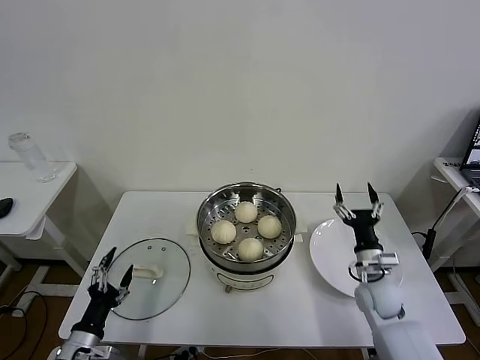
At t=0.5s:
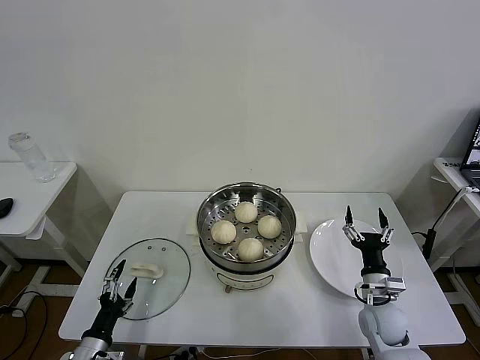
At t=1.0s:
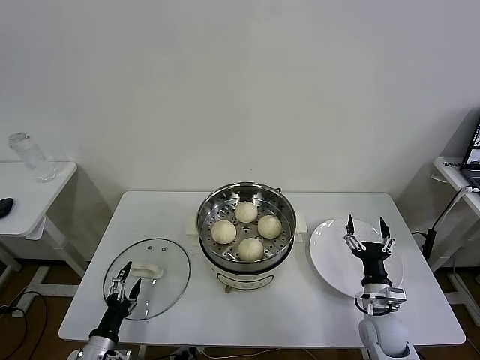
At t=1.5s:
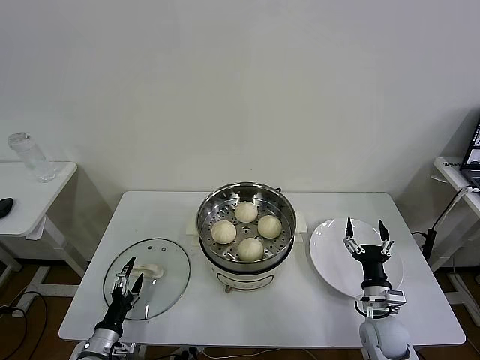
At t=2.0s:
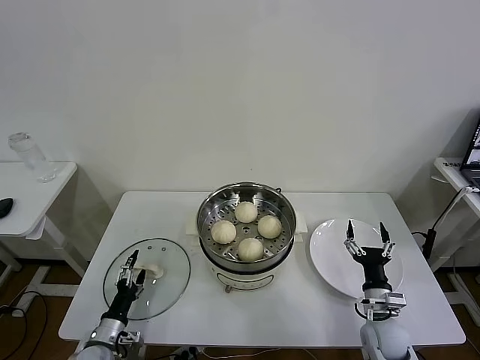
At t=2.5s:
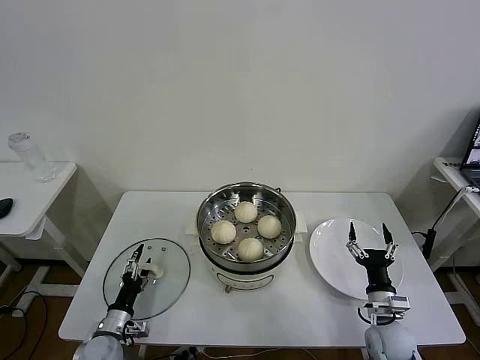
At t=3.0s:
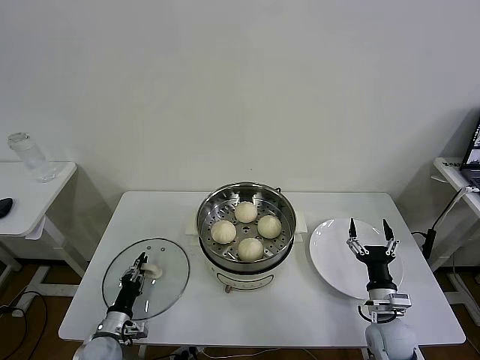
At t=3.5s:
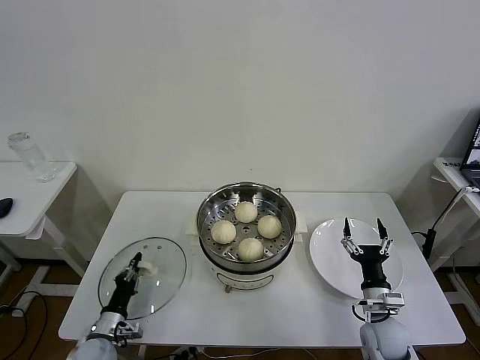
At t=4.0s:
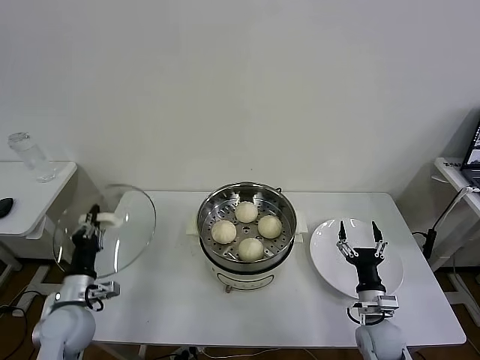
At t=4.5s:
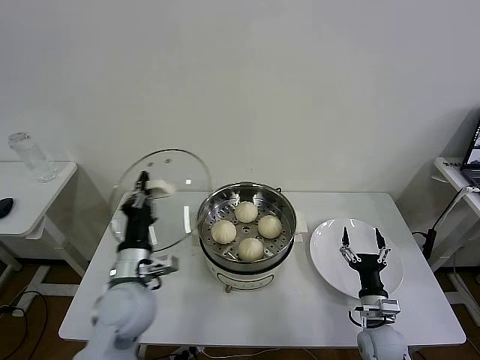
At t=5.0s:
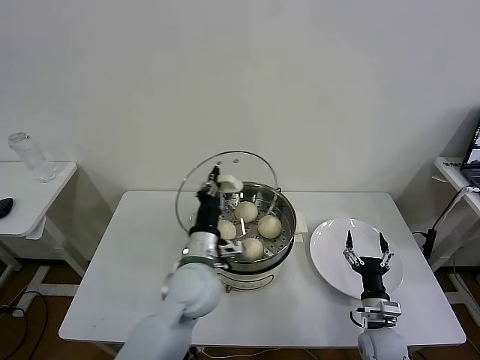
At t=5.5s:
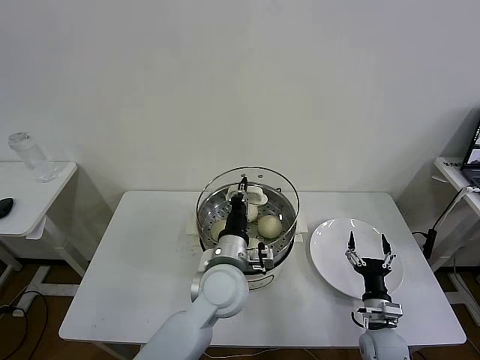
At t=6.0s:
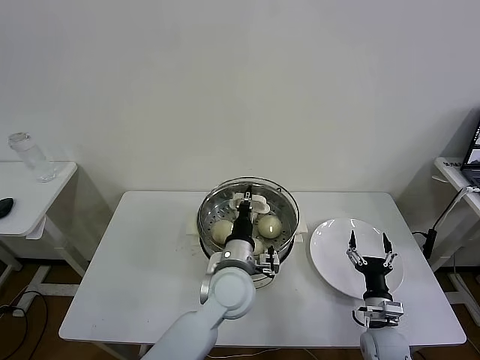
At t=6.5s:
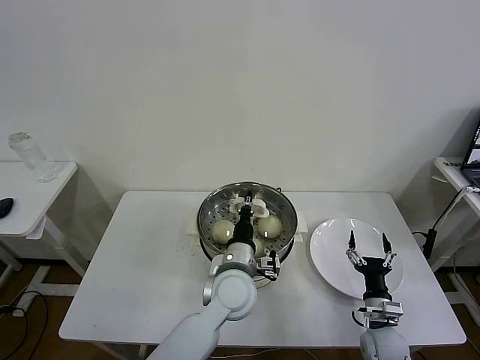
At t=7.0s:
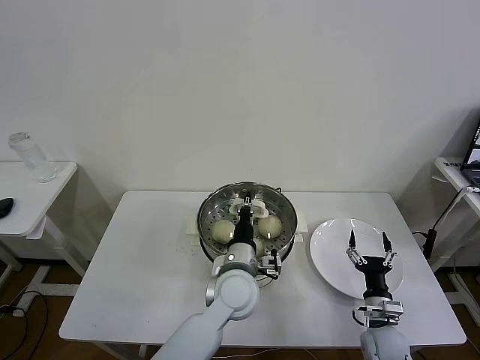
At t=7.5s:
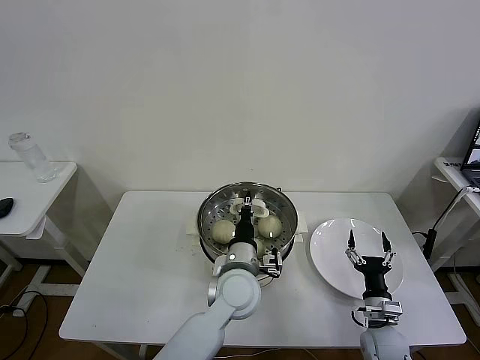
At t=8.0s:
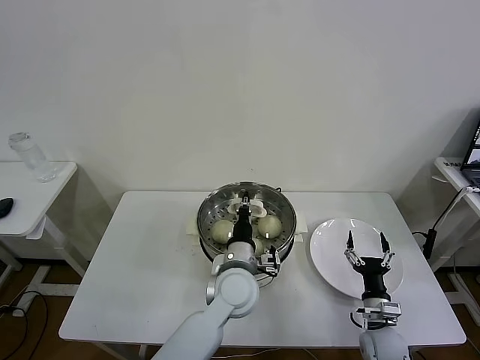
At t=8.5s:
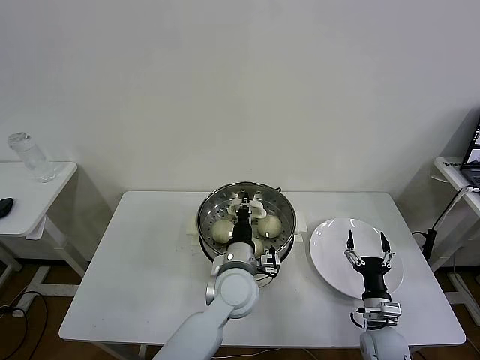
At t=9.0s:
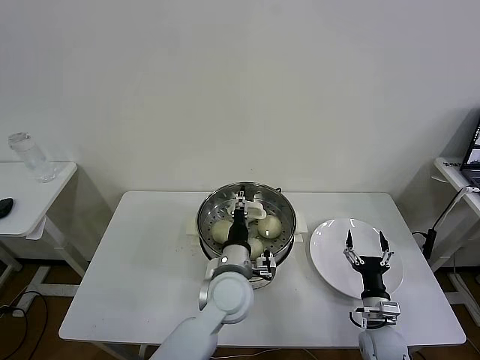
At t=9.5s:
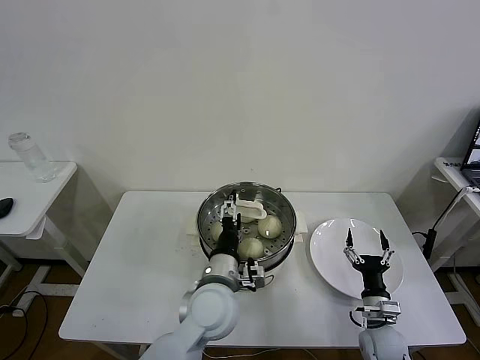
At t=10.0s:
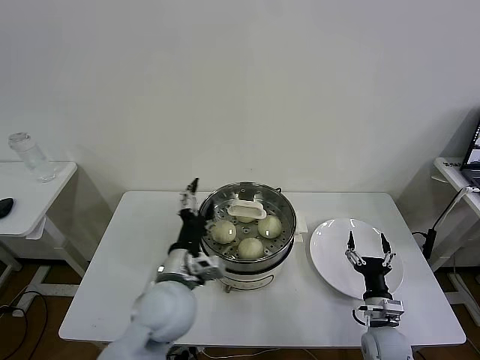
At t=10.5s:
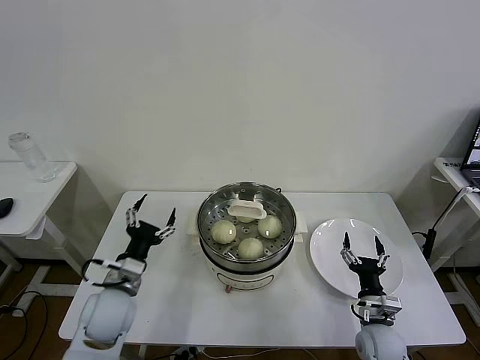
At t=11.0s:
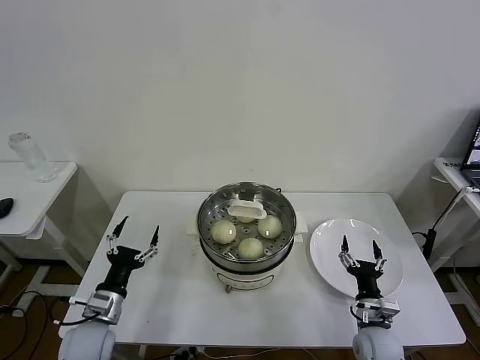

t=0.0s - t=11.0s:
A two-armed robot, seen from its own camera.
Task of the whole recording: take steamed baozi put them in steamer then cover it.
Step, t=0.0s - t=3.0s: Grasp the pot lid with left gripper.
Step, t=3.5s - t=9.0s: Place the pot lid on the steamer with left gripper.
t=0.0s - t=2.0s: The left gripper is displaced downward by some 10 cm. Meanwhile the right gripper shifts approximately 10 cm backward and downward.
t=2.0s - t=3.5s: The left gripper closes up.
t=3.5s - t=5.5s: The left gripper goes roughly 40 cm to the right and upward.
t=5.5s - t=7.5s: The grippers stay close to where they were, moving slightly.
t=7.5s - t=9.0s: The left gripper opens its fingers.
t=9.0s - t=11.0s: The left gripper moves to the left, approximately 30 cm, and opens.

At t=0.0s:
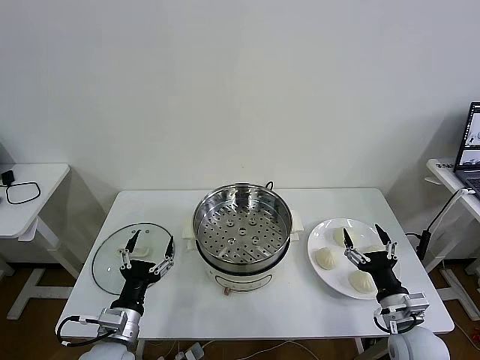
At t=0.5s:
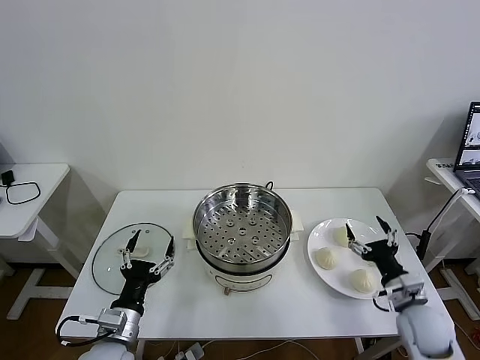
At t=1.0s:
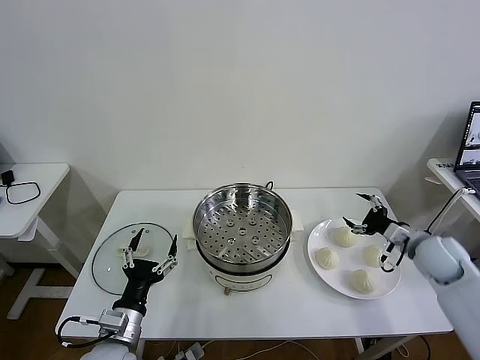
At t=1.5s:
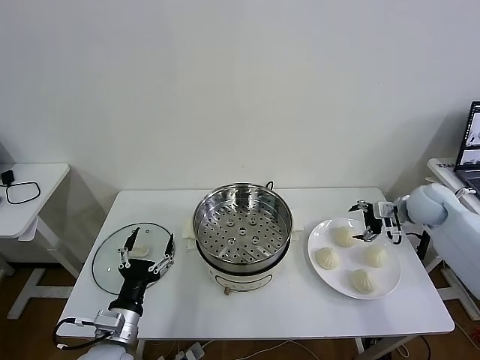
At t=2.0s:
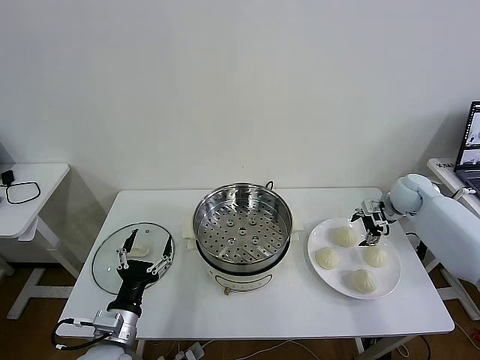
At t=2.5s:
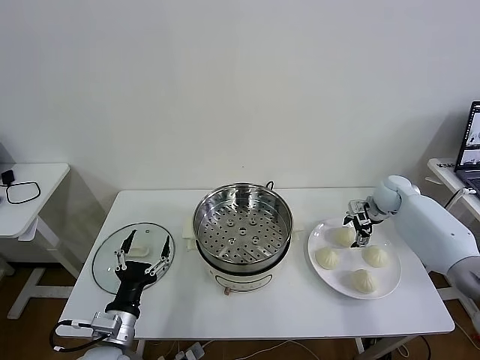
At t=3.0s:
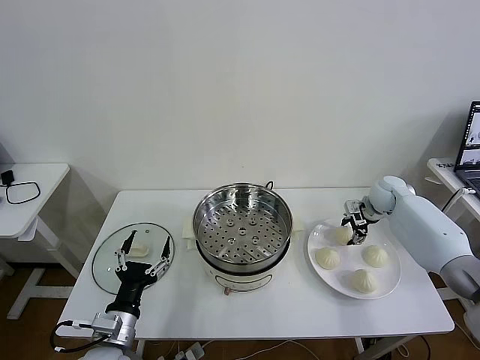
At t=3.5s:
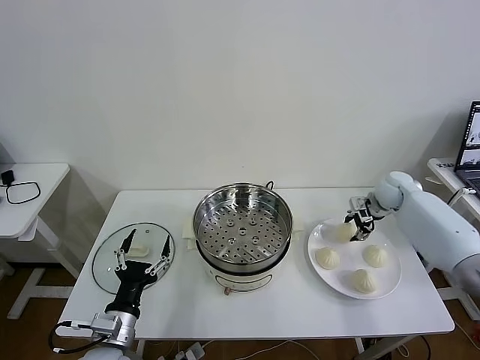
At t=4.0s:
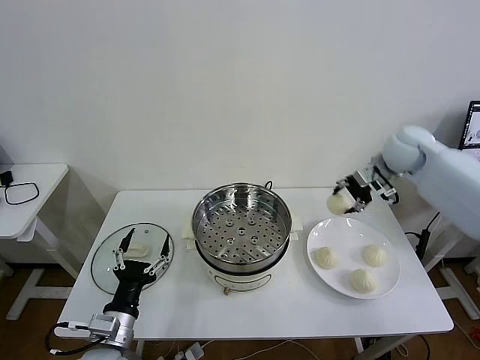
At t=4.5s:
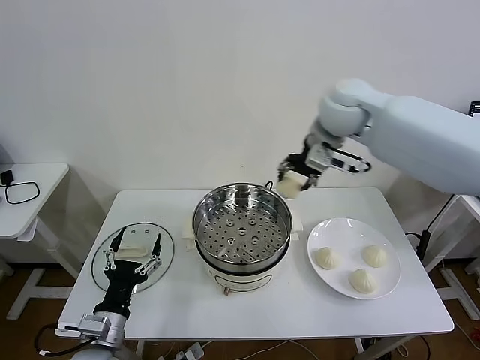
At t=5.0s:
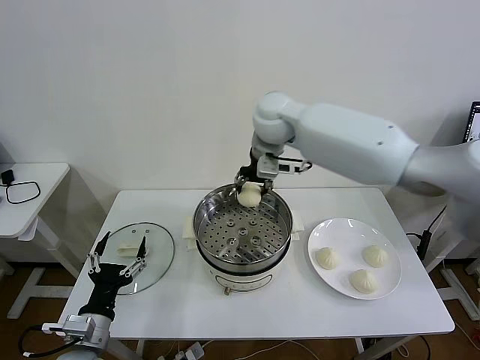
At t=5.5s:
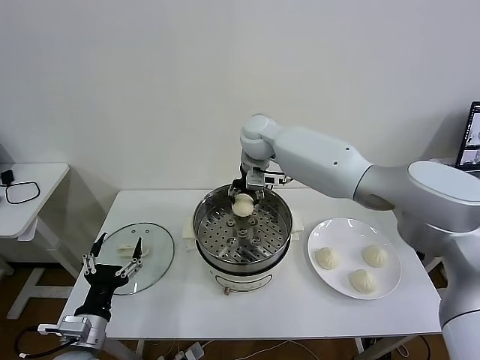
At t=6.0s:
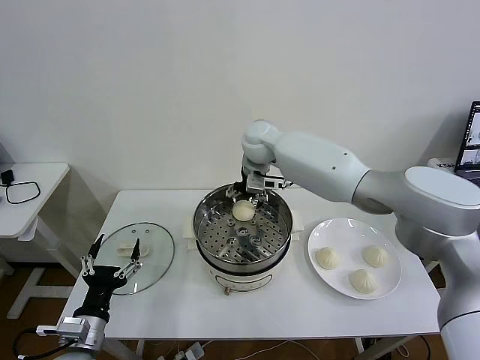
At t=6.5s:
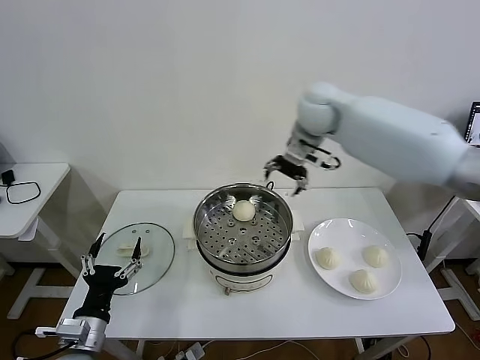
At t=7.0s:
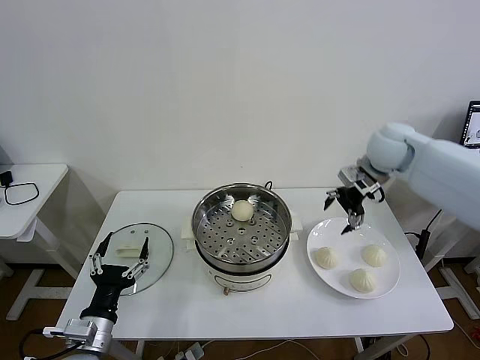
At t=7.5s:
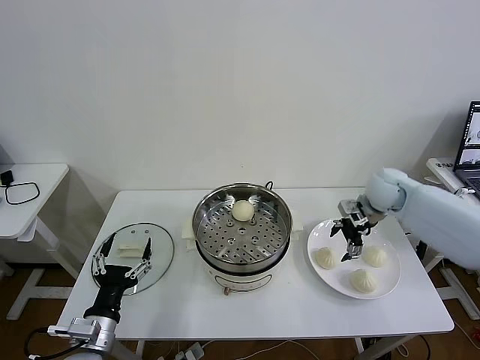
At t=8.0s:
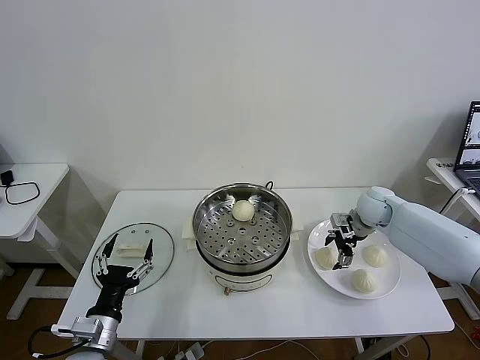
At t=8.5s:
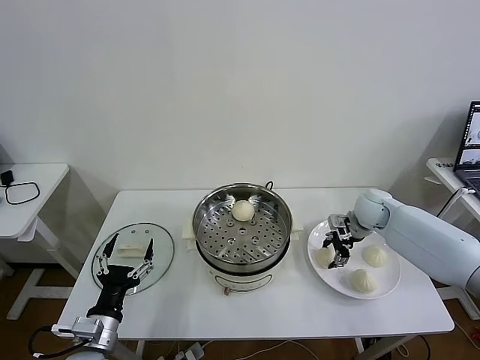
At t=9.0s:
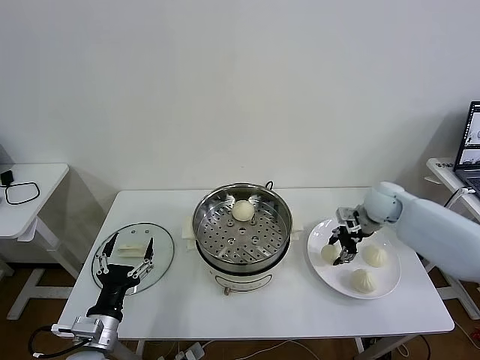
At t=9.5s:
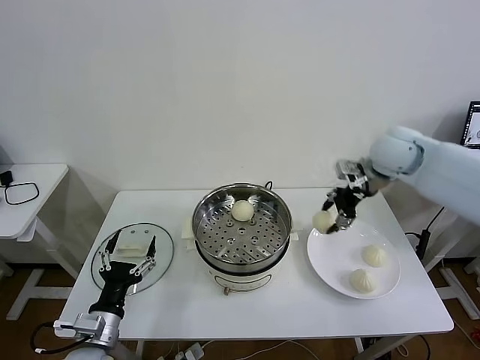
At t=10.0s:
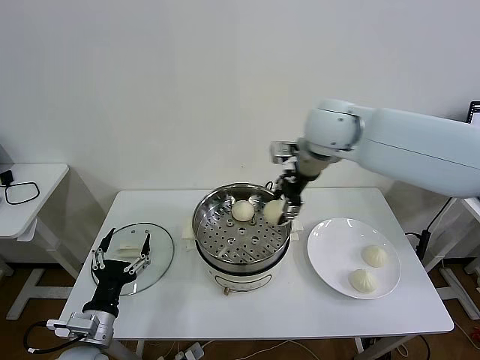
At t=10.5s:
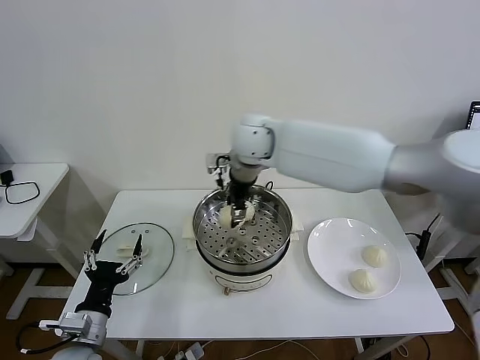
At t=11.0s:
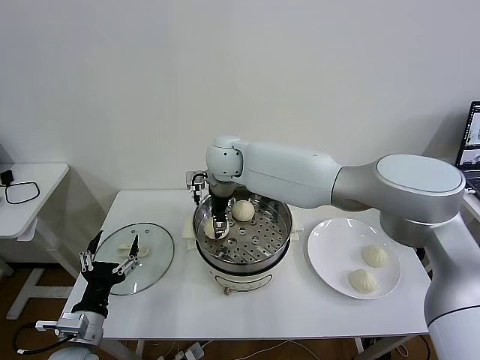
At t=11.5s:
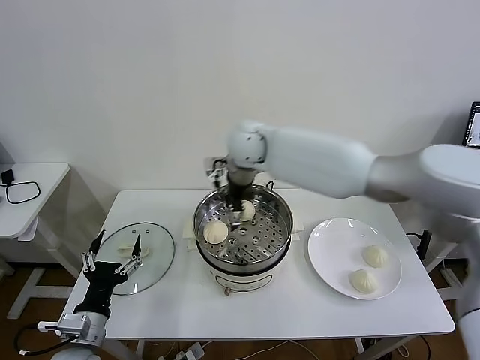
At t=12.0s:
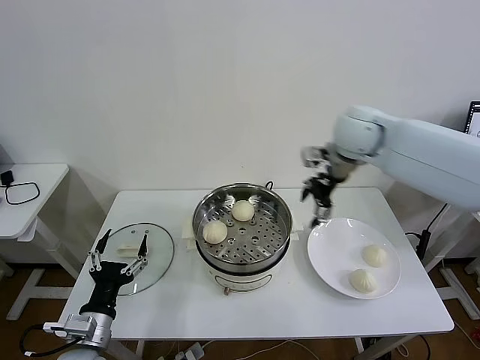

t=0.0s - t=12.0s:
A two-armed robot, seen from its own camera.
Task of the whole recording: take steamed baozi put them in steamer then cover it.
Step, t=0.0s - t=3.0s: Grasp the baozi in the plate with right gripper.
Step, t=3.5s - t=5.5s: Place the baozi on the steamer with right gripper.
Step, t=6.0s - t=8.5s: Grasp the baozi in the plate with right gripper.
Step, t=9.0s - t=11.0s: Place the baozi on the steamer with right gripper.
t=2.0s - t=4.0s: The right gripper travels upward and to the left by approximately 20 cm, and closes.
t=4.0s - t=6.0s: The left gripper is displaced to the left by some 5 cm. Meanwhile the right gripper heads to the left, covering approximately 25 cm, and opens up.
t=6.0s - t=8.0s: The right gripper heads to the right and downward, covering some 35 cm.
t=8.0s - t=10.0s: The right gripper is displaced upward and to the left by about 35 cm, and closes.
t=10.0s - t=12.0s: The right gripper shifts roughly 15 cm to the right, and opens.

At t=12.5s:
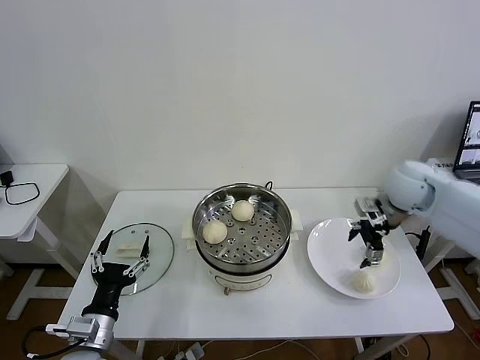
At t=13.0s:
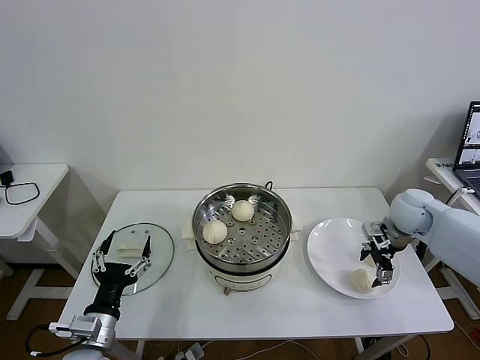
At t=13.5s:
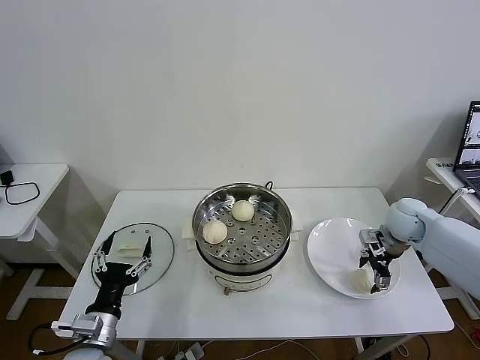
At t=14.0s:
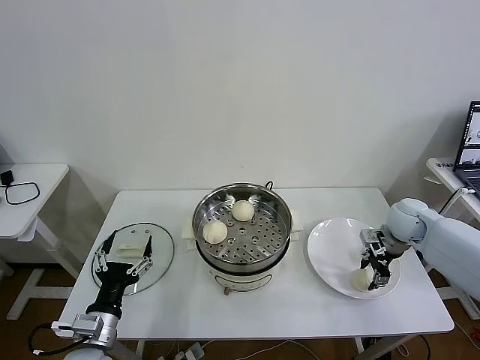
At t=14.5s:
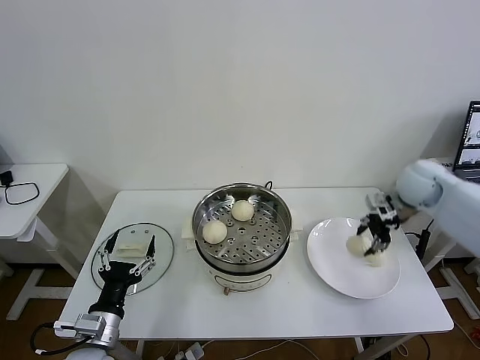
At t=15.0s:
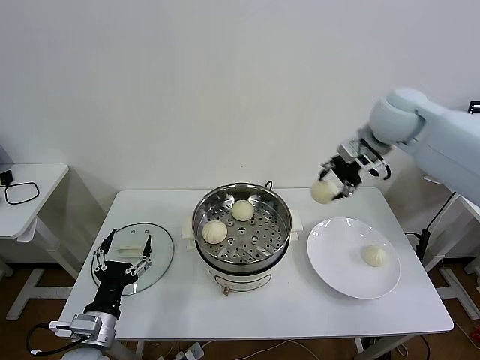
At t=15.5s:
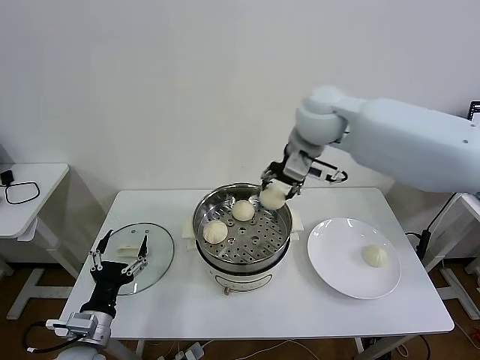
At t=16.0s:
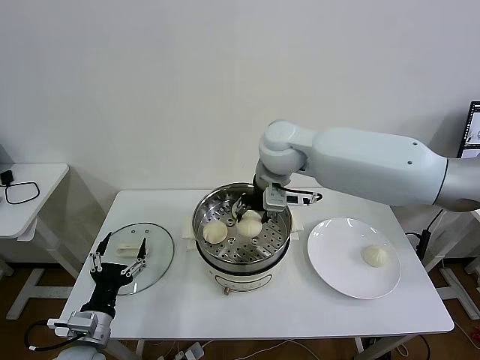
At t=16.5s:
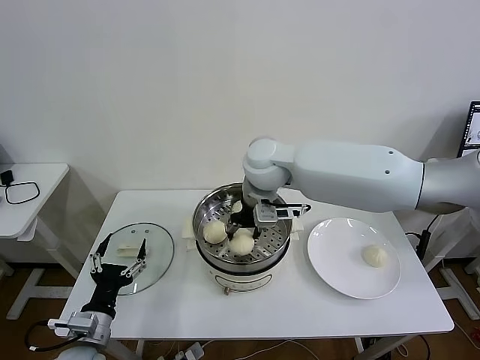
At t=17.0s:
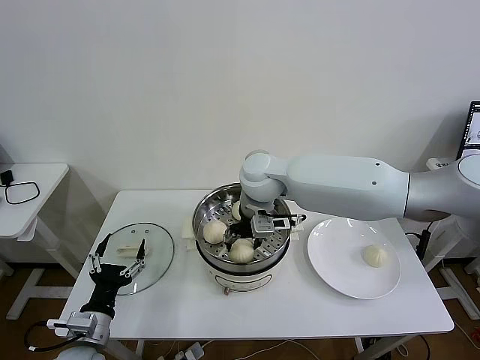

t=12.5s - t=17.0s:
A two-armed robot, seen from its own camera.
Task of the whole recording: take steamed baozi put them in steamer then cover it.
t=12.5s - t=14.5s: The right gripper goes downward and returns, about 10 cm each way, and closes up.
t=14.5s - t=17.0s: The right gripper heads to the left, covering roughly 35 cm, and opens.
